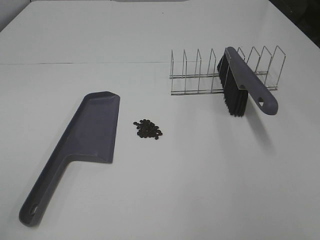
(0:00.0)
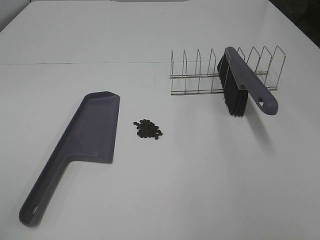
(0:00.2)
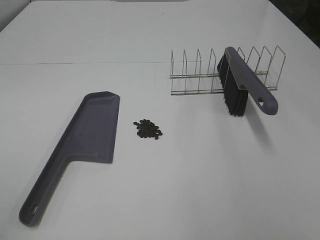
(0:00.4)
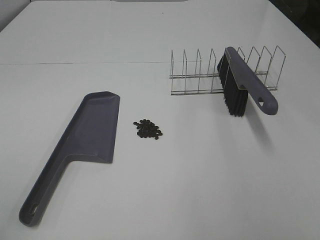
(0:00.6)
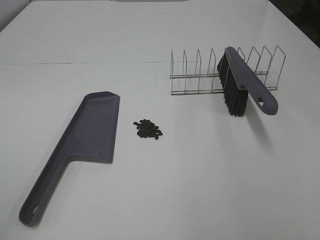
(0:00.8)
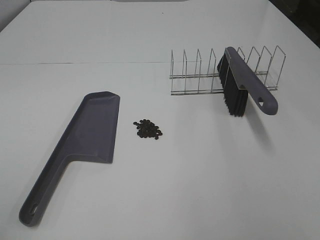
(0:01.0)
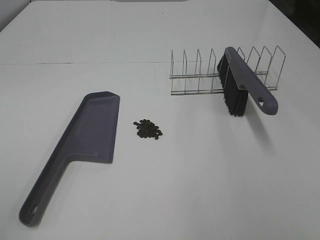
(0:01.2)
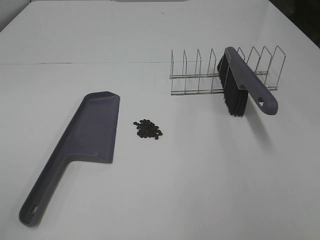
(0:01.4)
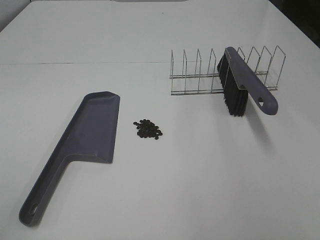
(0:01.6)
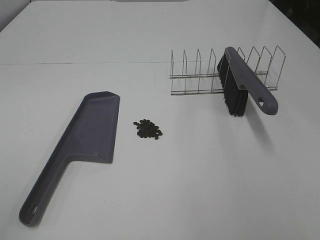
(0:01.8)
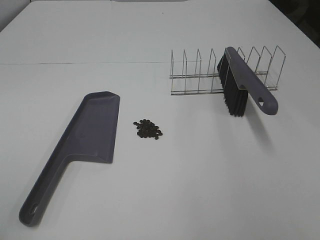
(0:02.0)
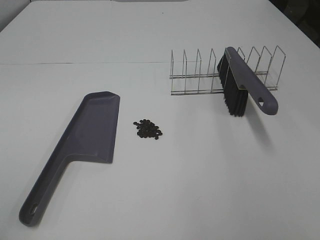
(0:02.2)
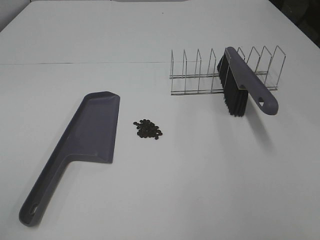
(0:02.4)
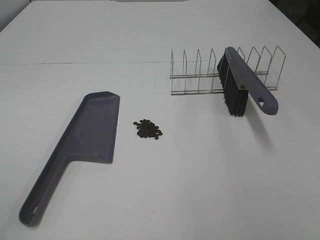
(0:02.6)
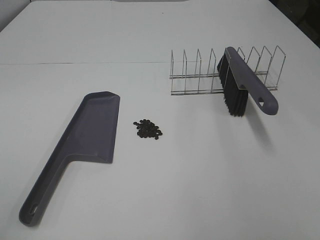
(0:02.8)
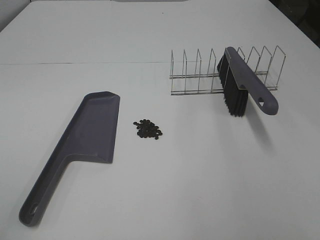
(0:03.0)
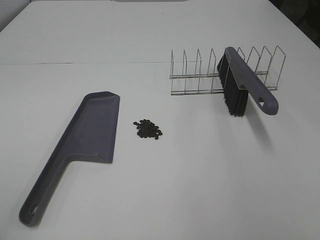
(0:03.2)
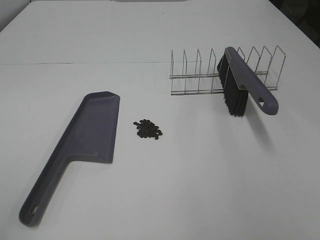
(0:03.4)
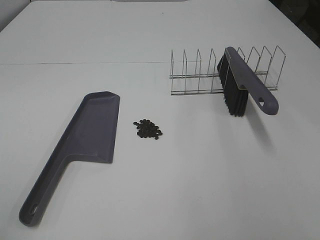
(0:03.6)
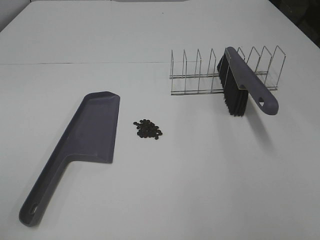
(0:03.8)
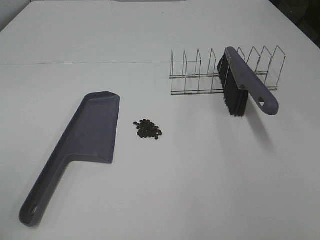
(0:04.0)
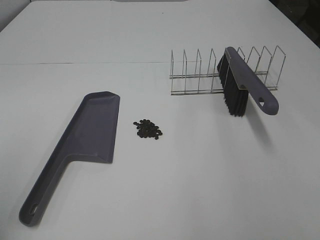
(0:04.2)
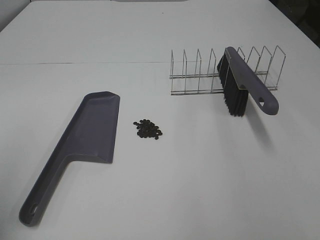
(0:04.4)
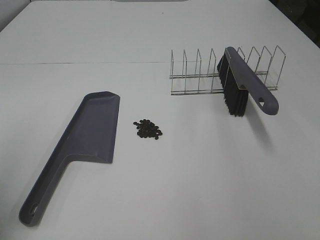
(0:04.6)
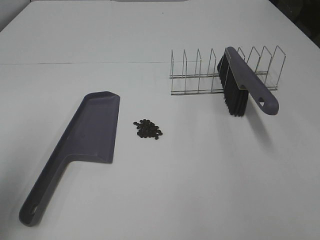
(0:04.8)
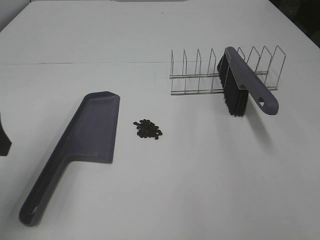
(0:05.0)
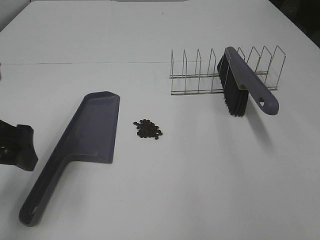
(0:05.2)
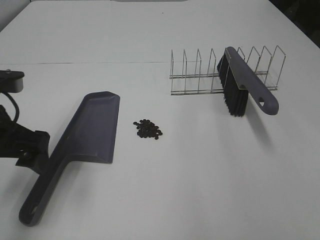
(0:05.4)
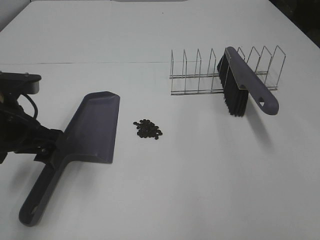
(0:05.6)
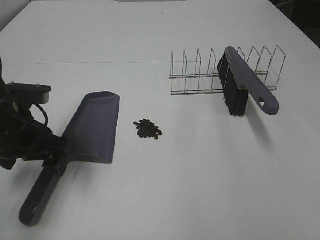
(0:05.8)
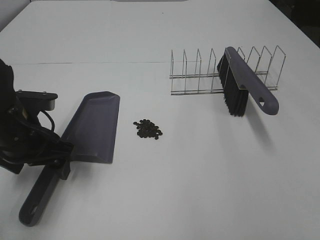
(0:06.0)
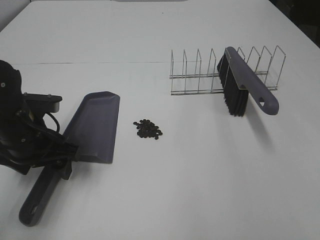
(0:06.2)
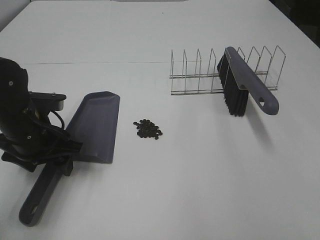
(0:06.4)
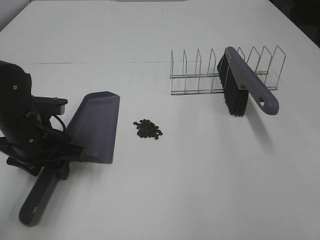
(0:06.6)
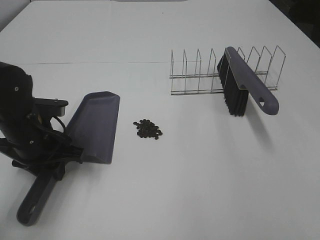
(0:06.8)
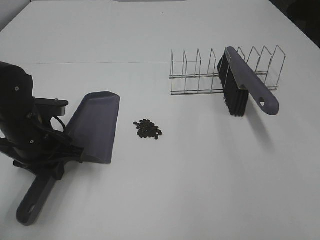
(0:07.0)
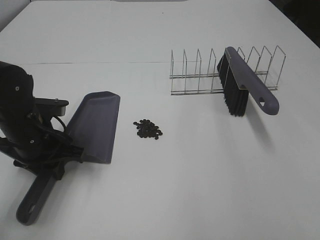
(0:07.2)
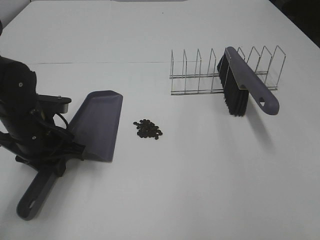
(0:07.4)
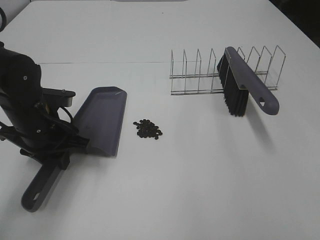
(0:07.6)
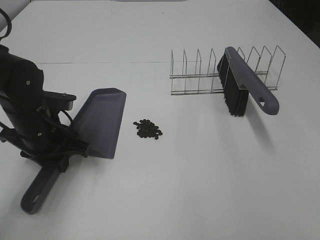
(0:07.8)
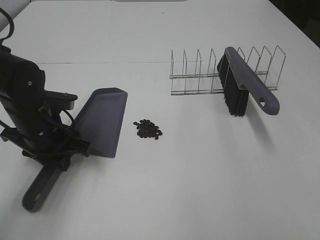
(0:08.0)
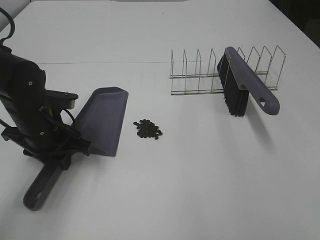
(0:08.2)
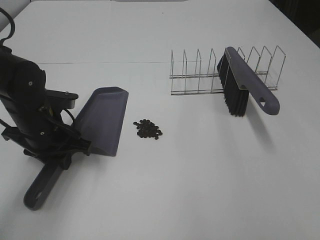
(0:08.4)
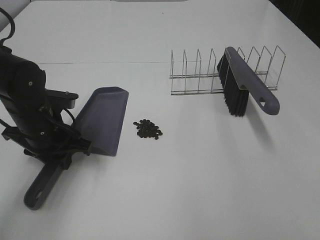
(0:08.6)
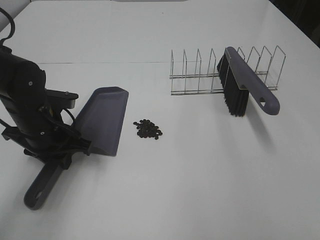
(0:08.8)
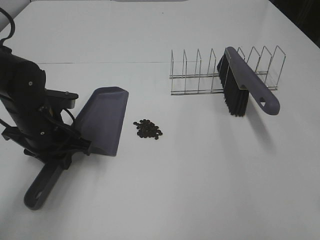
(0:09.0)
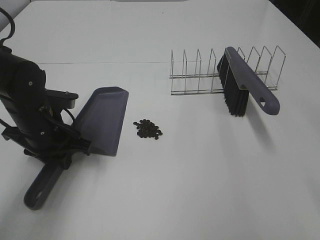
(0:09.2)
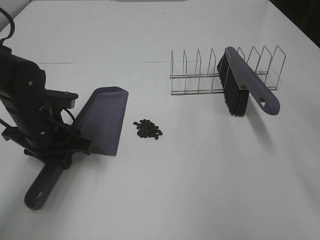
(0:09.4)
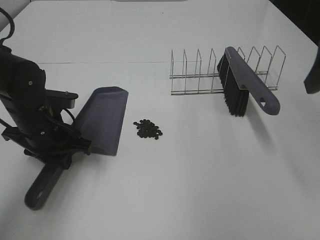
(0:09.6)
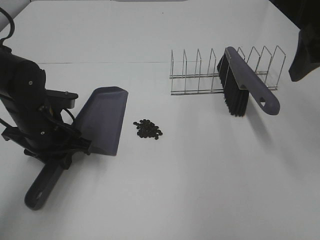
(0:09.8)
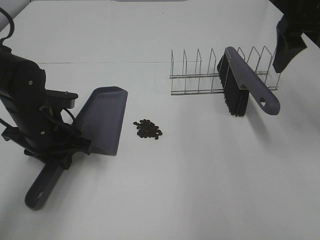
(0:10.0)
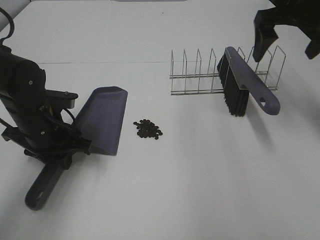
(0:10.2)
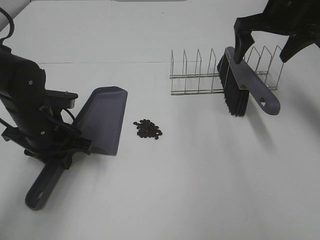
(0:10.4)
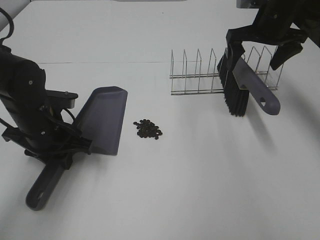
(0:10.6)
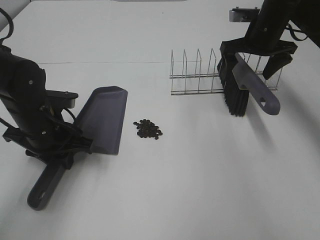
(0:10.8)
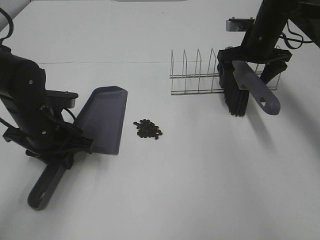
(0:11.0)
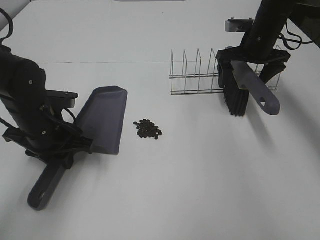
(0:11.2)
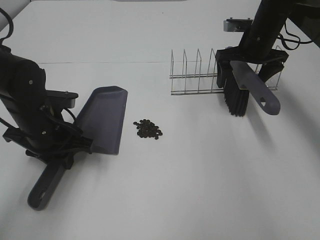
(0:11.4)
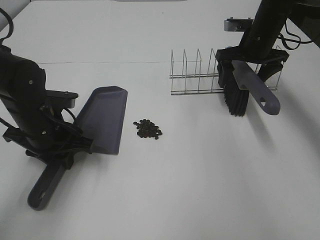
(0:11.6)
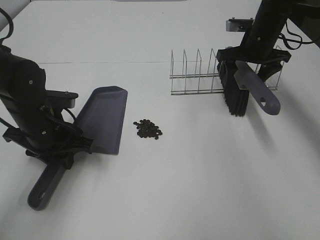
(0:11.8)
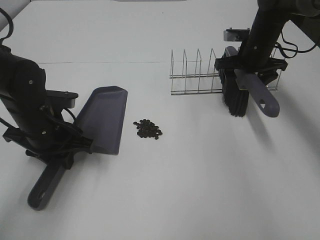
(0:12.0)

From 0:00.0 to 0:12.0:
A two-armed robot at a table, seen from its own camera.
Task of the whole recording: Sweep Coffee Bean.
Step, from 0:00.0 to 0:06.8: Left hand: grab the dustpan.
From 0:00.0 to 0:03.0: The two grippers keep their place.
From 0:04.4 to 0:06.0: The left gripper is displaced downward, forward and to the right by about 25 cm.
From 0:06.0 to 0:07.6: The left gripper closes.
From 0:09.0 to 0:10.4: The right gripper moves forward, approximately 35 cm.
From 0:10.4 to 0:12.0: The right gripper is displaced downward by roughly 10 cm, and closes.

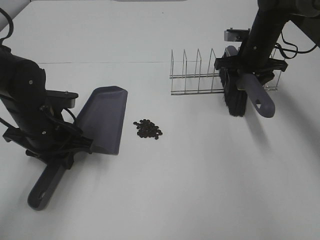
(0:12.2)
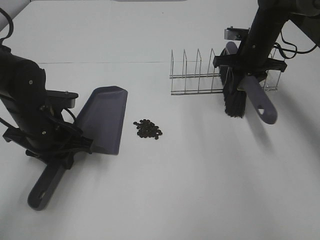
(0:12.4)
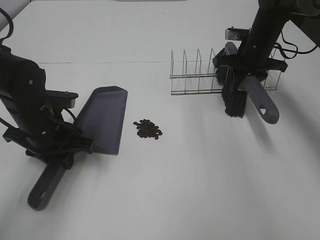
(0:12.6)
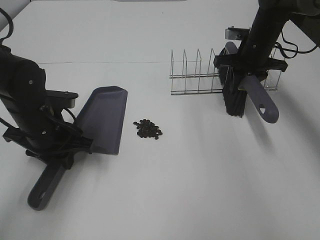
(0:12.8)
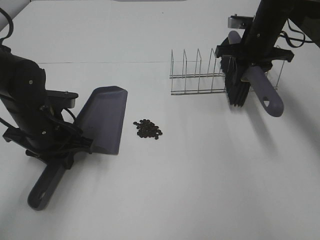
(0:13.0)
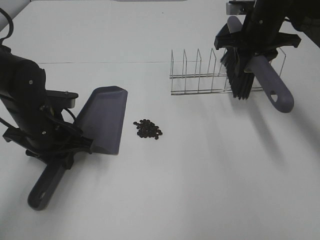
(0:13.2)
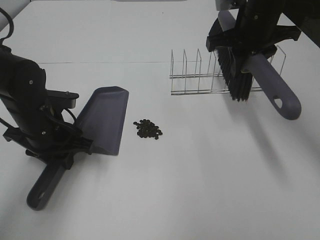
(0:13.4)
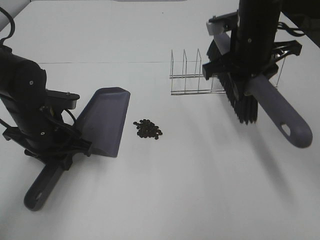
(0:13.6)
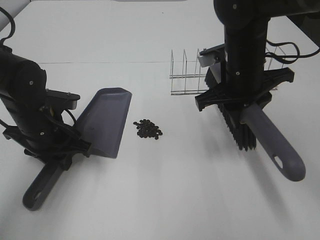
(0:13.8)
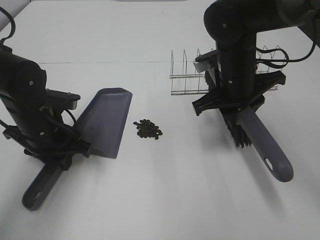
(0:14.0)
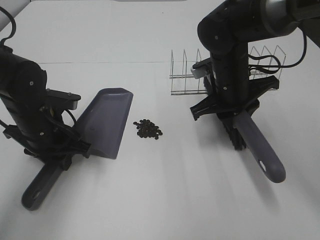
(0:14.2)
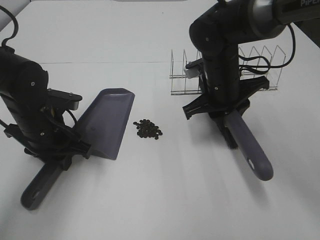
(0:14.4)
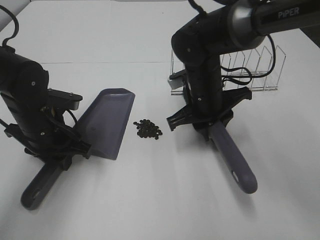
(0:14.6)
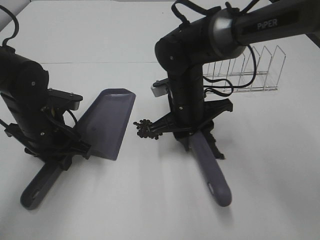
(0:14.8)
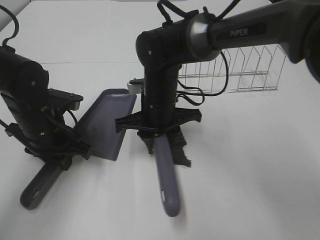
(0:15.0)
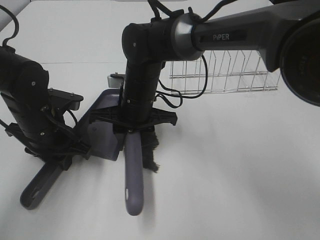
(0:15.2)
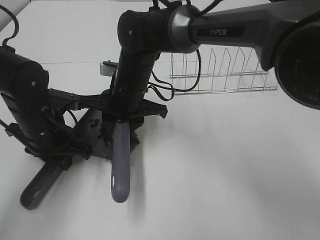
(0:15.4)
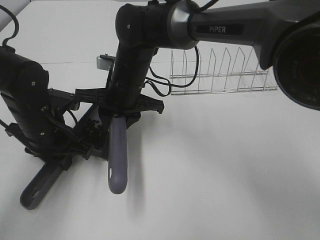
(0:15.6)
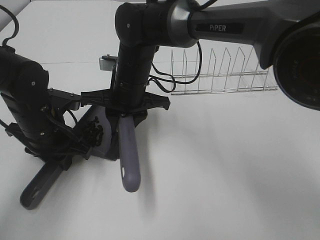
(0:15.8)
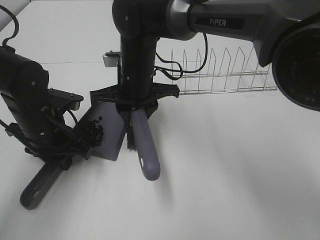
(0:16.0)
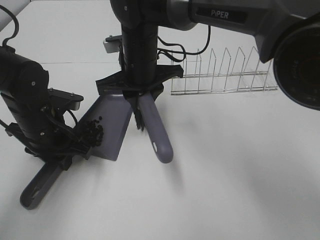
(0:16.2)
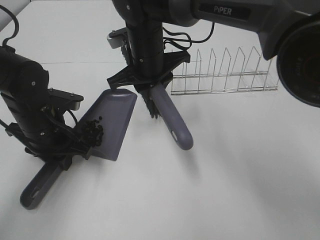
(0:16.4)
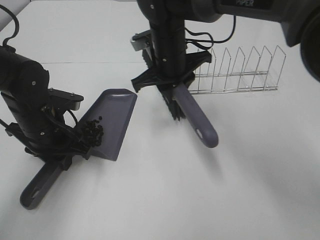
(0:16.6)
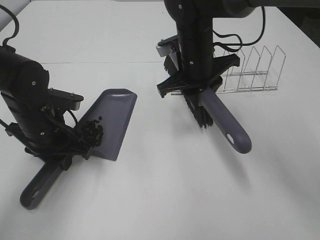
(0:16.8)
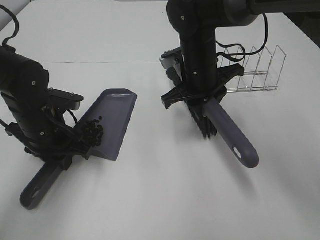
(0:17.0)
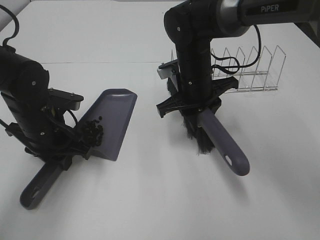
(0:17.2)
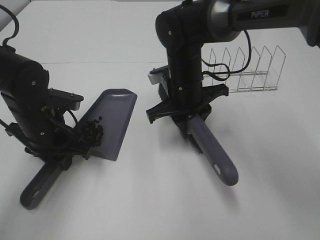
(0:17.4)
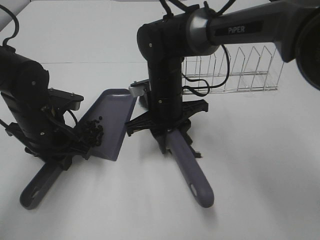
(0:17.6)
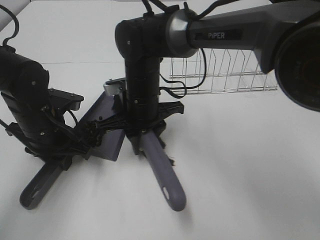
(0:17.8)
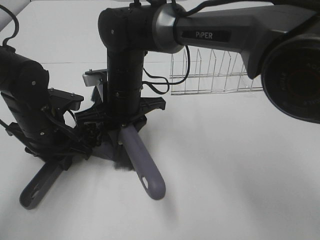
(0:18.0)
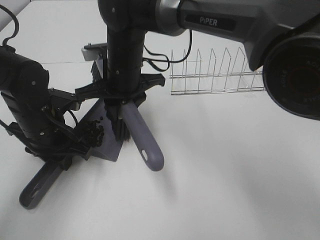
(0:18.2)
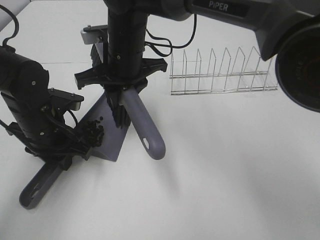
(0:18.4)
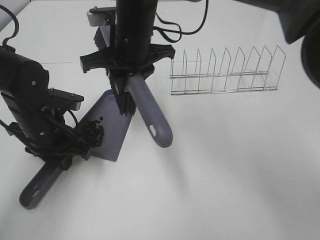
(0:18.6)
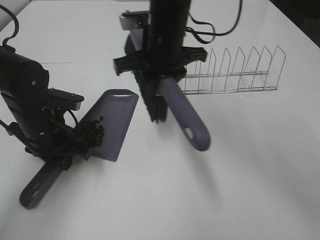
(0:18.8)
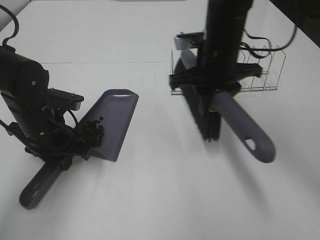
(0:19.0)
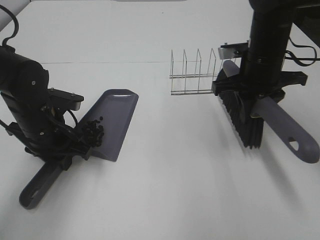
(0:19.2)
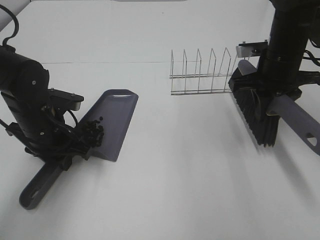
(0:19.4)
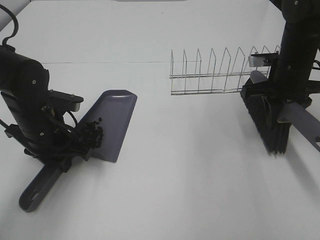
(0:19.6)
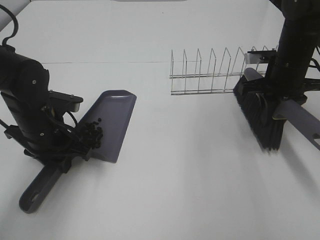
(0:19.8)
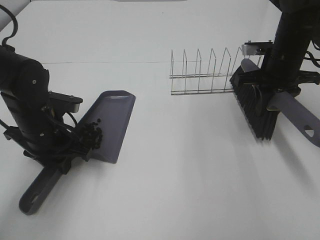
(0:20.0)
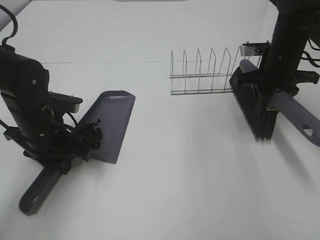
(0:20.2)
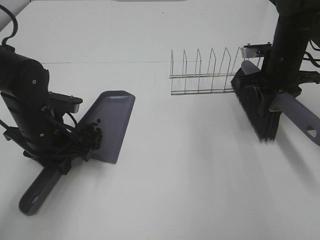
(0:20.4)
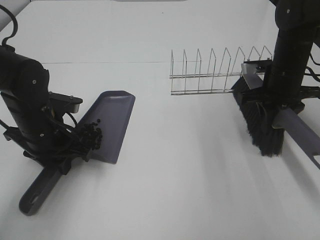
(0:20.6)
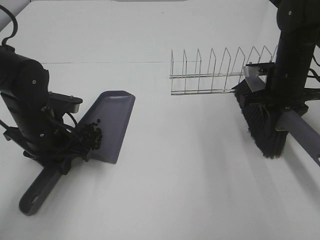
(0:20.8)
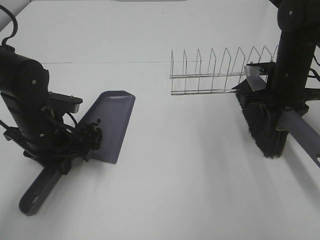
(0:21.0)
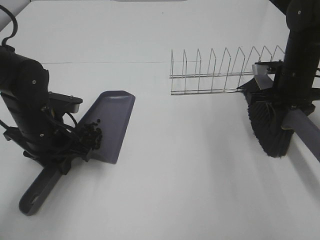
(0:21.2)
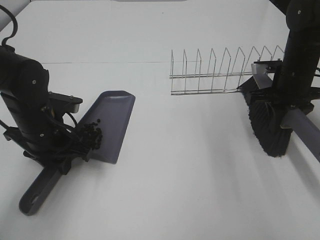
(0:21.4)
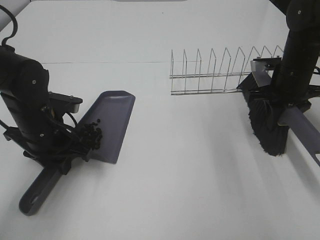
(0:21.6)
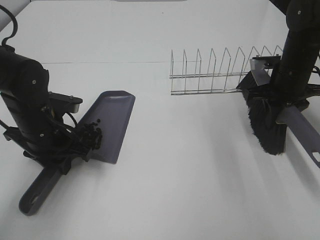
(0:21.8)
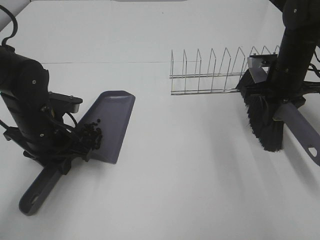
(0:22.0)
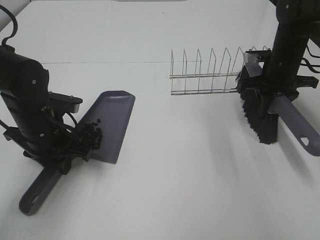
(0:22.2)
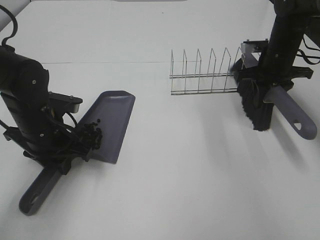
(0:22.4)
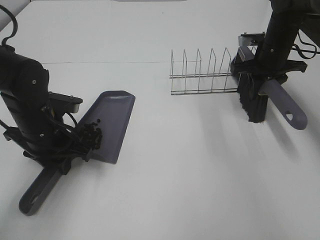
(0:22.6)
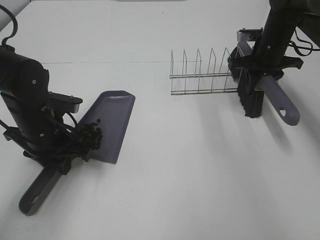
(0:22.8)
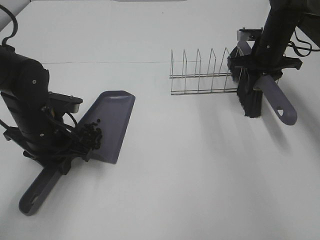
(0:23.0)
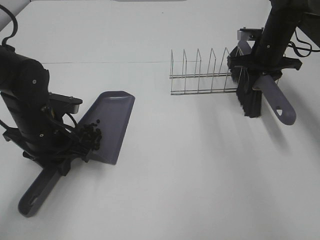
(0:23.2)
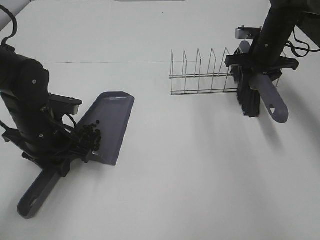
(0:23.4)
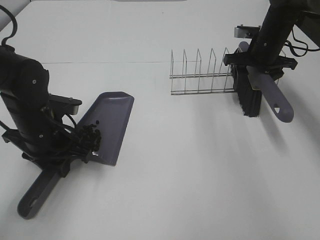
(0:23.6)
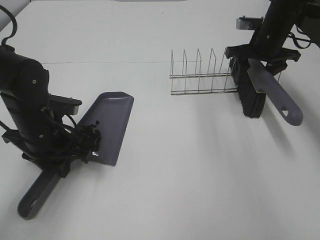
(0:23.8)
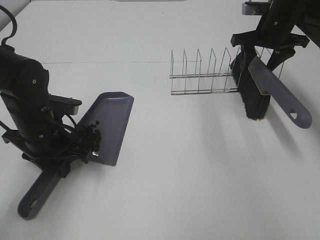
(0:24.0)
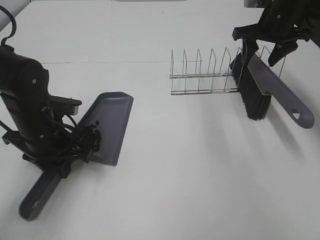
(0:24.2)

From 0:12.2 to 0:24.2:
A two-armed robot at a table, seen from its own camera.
Task of the whole recording: Sweep Coffee Bean.
Step, from 0:12.4 to 0:18.2: Right hand:sweep the coffee beans into the dustpan.
Step, from 0:18.4 to 0:23.6: Right hand:place the broom on the rack.
From 0:12.2 to 0:13.8: The right gripper goes approximately 15 cm backward and to the left, and closes up.
From 0:13.8 to 0:15.2: The right gripper travels to the left and downward by approximately 20 cm.
From 0:15.2 to 0:16.6: The right gripper travels to the right and upward by roughly 10 cm.
From 0:16.6 to 0:18.2: The right gripper goes about 10 cm to the left.
From 0:18.2 to 0:19.8: The right gripper is displaced to the right by roughly 30 cm.
From 0:19.8 to 0:21.2: The grippers stay close to where they were, moving slightly.
From 0:21.2 to 0:22.6: The right gripper travels forward by approximately 10 cm.
From 0:22.6 to 0:24.2: The right gripper goes about 5 cm upward, and opens.
